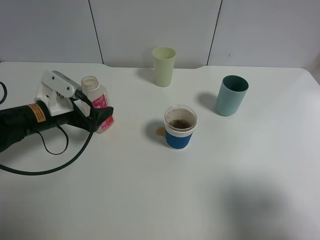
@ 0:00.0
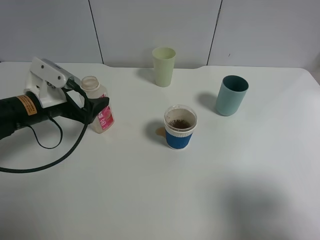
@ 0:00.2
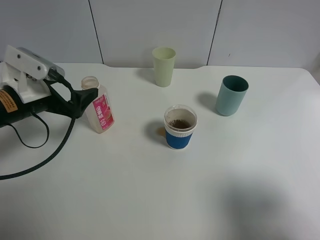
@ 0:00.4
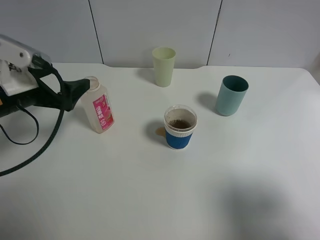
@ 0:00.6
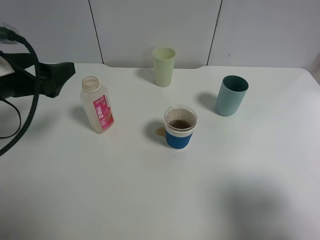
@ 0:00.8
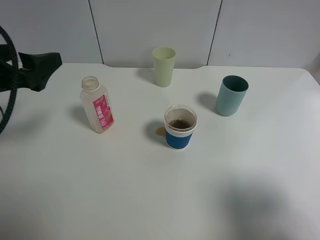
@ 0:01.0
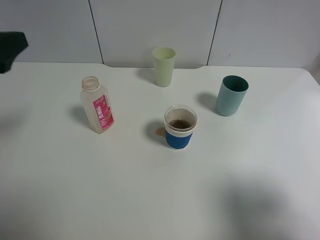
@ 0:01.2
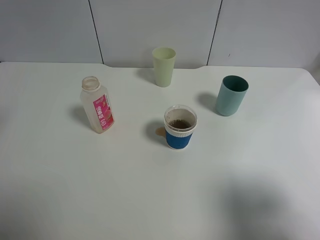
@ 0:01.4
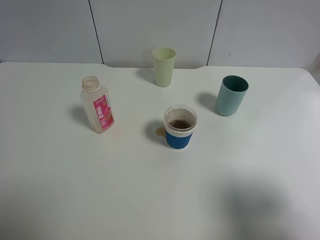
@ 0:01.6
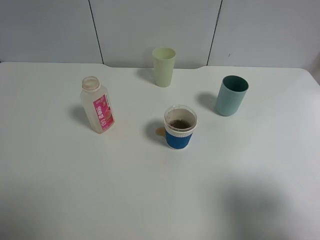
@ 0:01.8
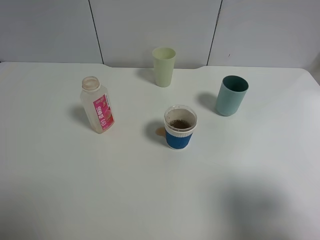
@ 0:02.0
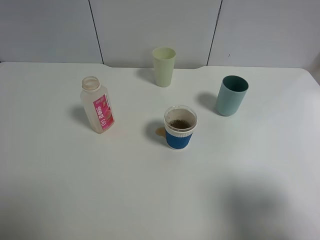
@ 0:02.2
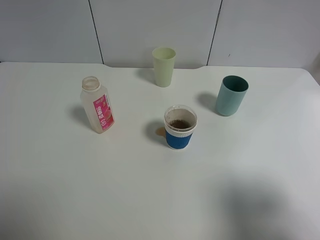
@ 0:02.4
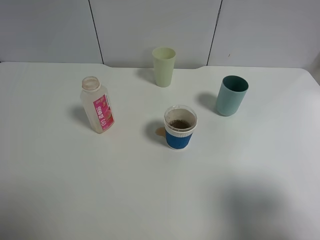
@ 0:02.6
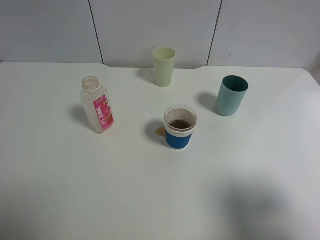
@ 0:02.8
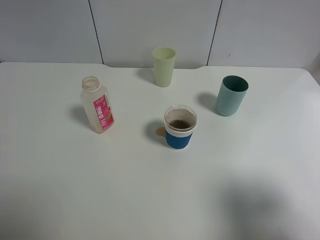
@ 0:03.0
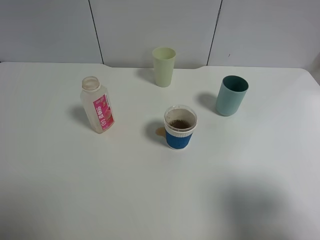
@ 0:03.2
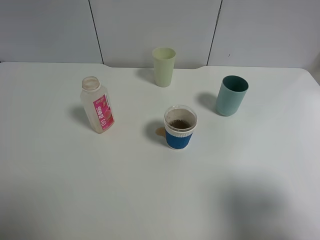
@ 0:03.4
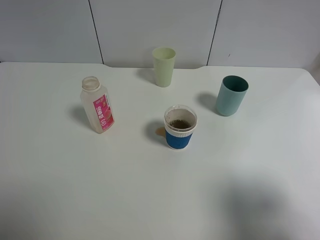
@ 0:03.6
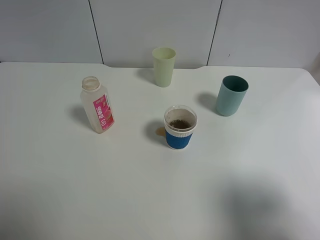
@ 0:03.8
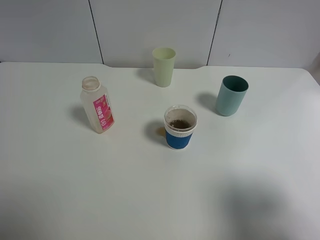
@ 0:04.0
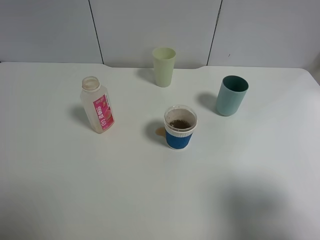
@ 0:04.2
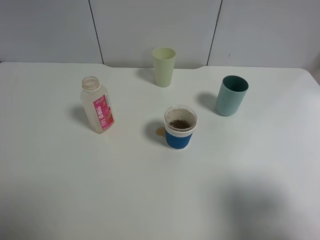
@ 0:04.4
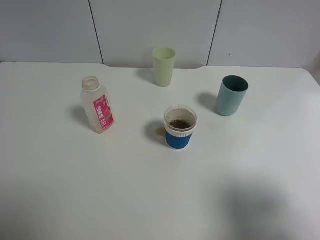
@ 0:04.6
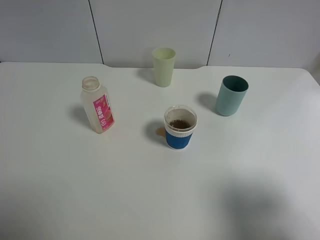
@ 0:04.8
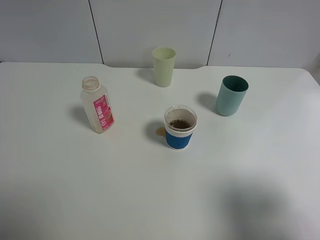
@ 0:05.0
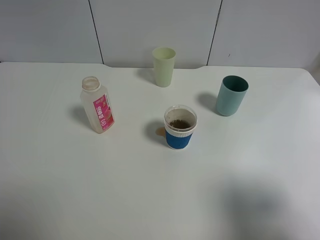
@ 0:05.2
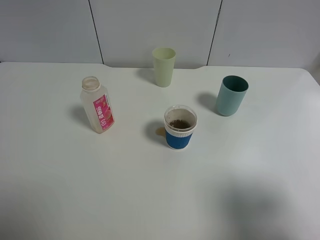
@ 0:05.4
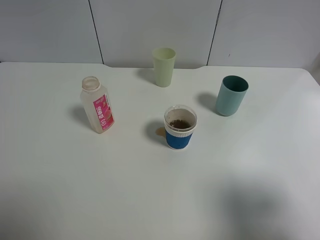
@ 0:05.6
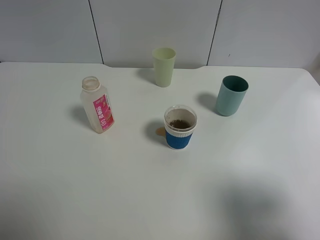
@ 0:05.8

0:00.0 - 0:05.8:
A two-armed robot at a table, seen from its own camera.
Task of the whole recording: use a gripper to hold the bottle of the drink and pour it into a random cup.
0:00.0 - 0:01.4: The left gripper travels upward and backward by roughly 25 cm.
0:02.8 - 0:05.8: The two grippers keep their place.
